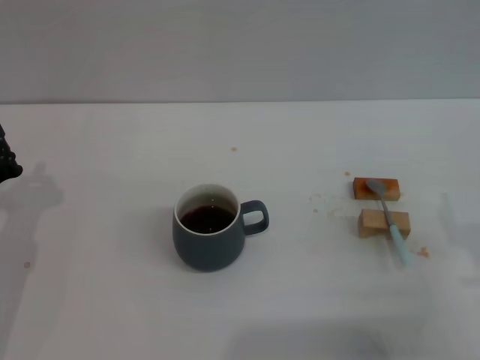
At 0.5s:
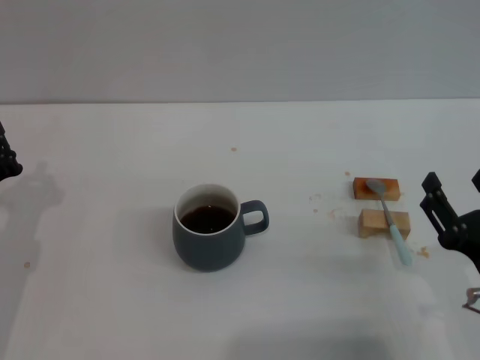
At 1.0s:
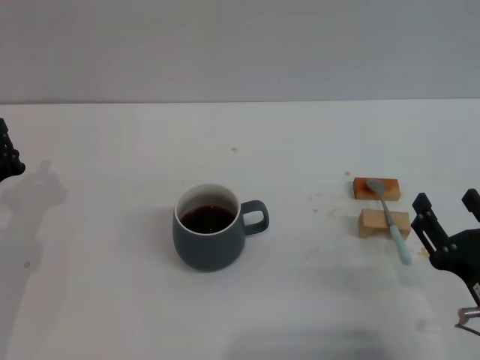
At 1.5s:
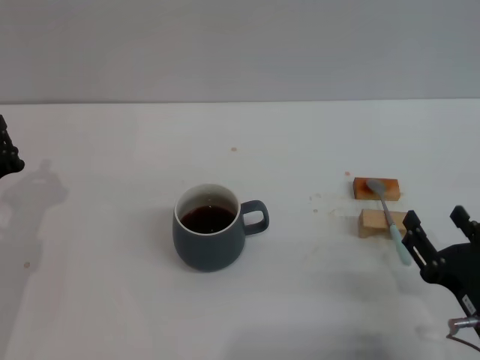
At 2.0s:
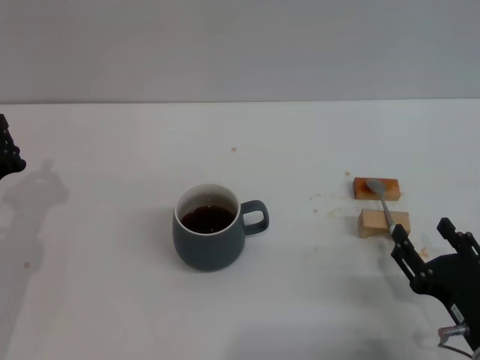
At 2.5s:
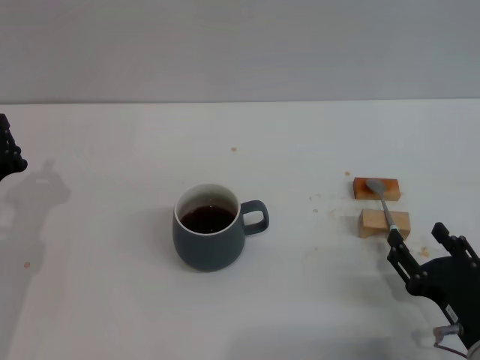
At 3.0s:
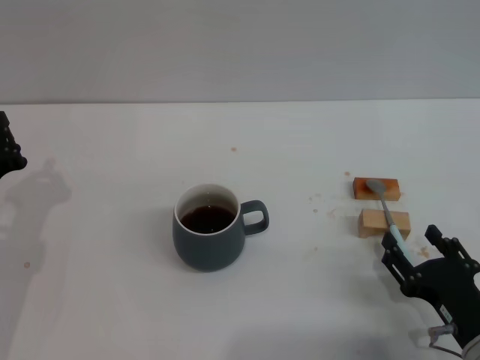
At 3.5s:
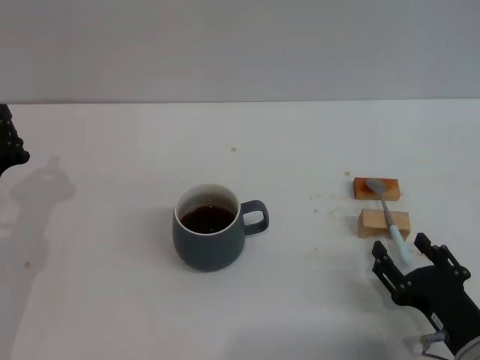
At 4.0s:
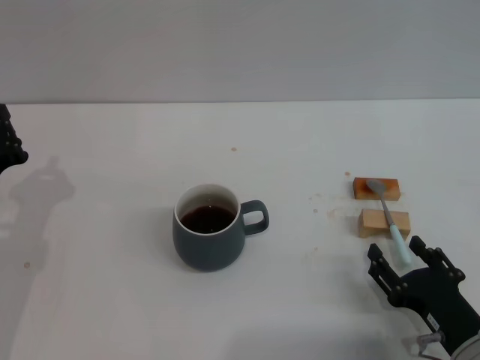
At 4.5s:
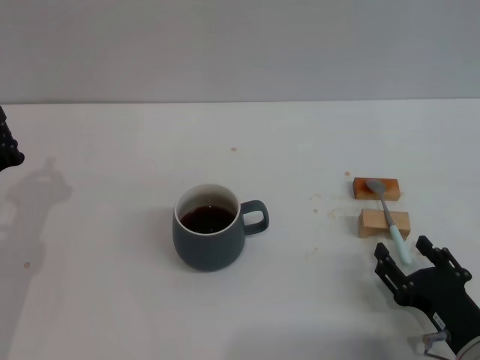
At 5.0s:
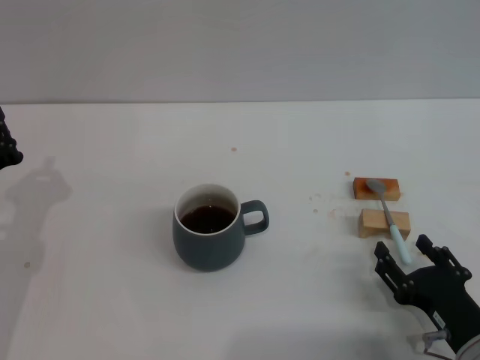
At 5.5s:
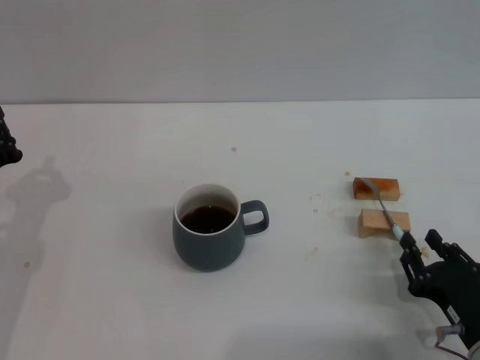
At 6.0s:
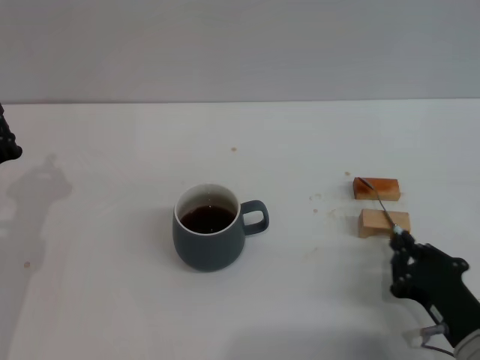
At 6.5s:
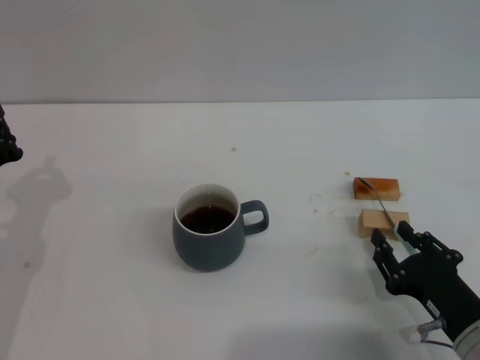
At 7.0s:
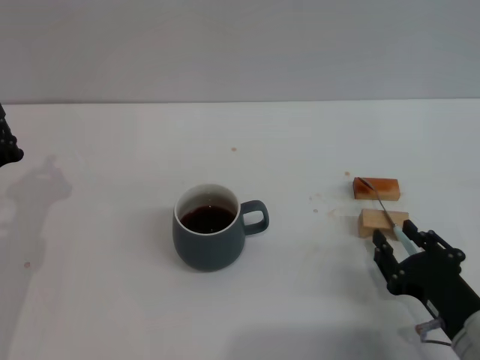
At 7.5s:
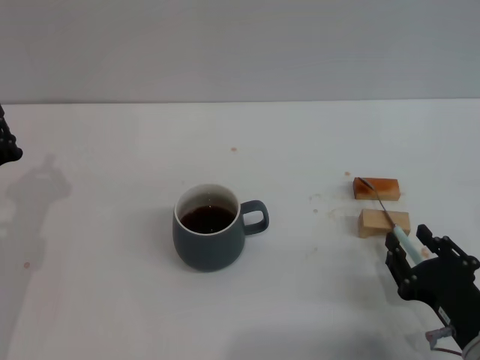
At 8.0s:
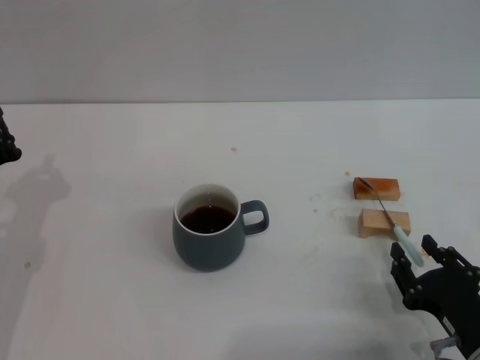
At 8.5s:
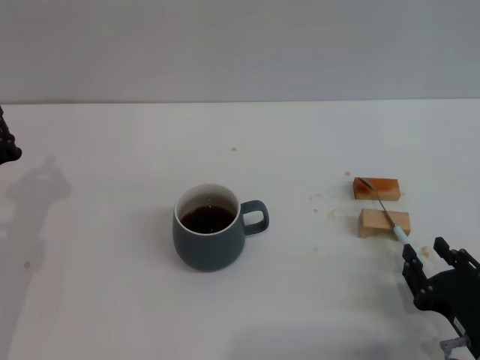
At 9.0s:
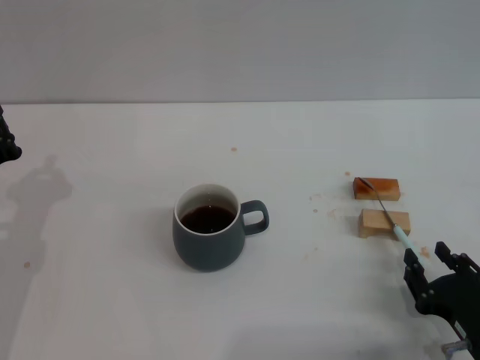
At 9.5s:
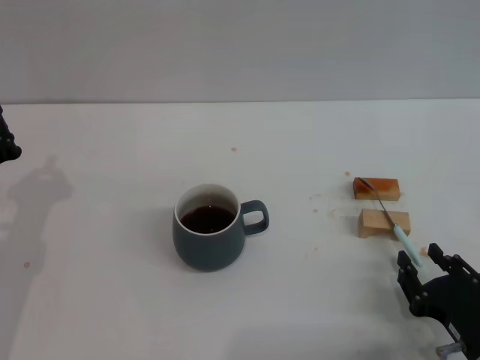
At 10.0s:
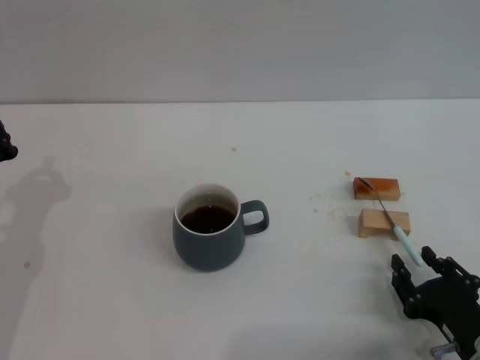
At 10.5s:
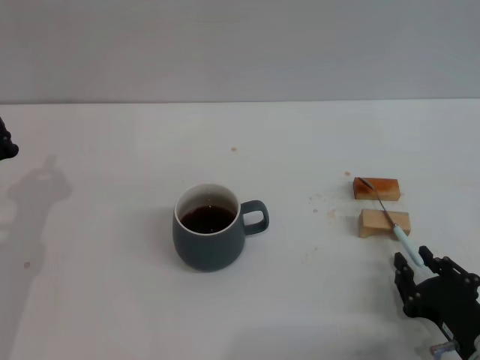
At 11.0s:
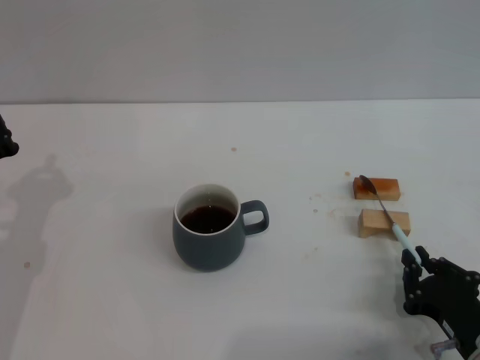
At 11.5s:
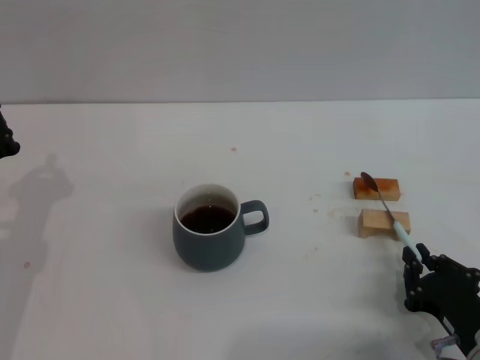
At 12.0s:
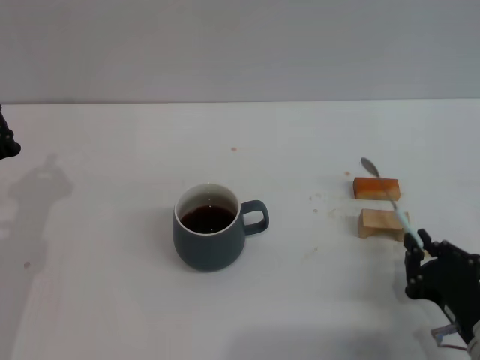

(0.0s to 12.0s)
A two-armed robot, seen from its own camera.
Task of the whole recording: Move the grey cup to the center, lift the blue spoon, stir it three times in the cup, and put the spoon into the cup.
0.0s - 2.0s: The right gripper shifts some 5 cm downward.
2.0s - 4.0s: The grippers move only a little.
4.0s - 6.0s: The right gripper closes.
6.0s - 8.0s: The right gripper opens its fingers.
8.0s - 10.0s: Both grippers stay about where they are.
10.0s - 12.0s: The right gripper closes.

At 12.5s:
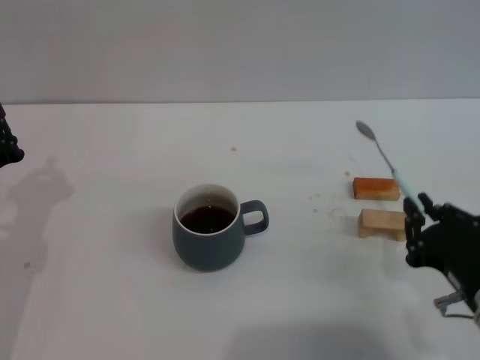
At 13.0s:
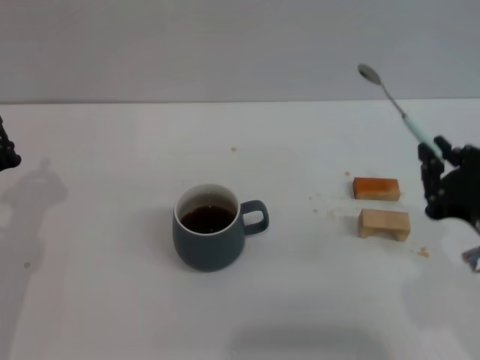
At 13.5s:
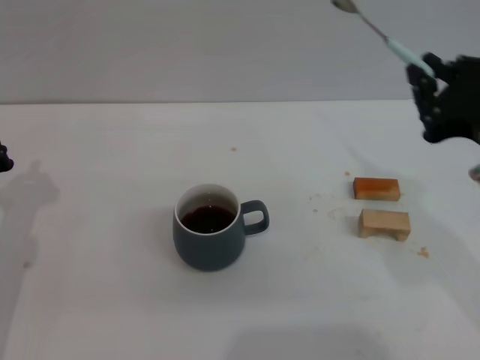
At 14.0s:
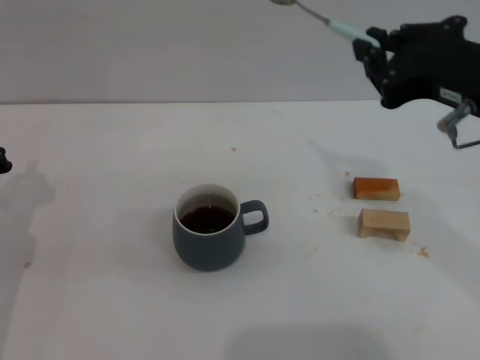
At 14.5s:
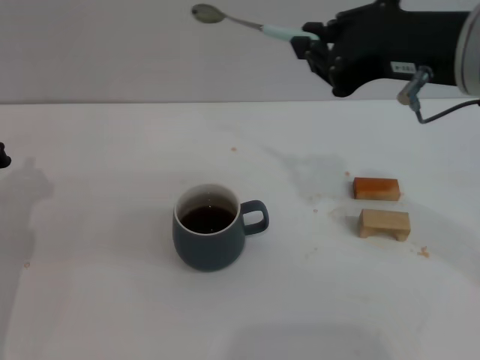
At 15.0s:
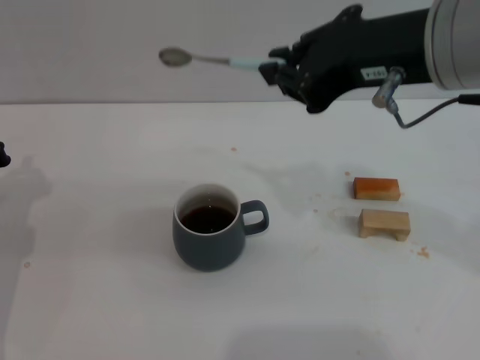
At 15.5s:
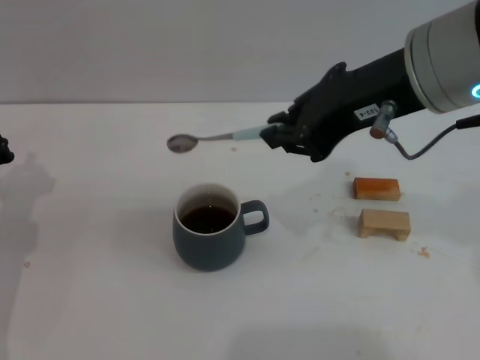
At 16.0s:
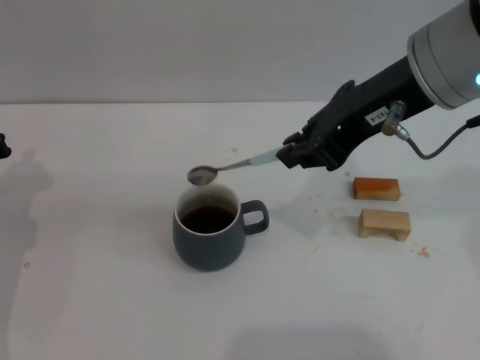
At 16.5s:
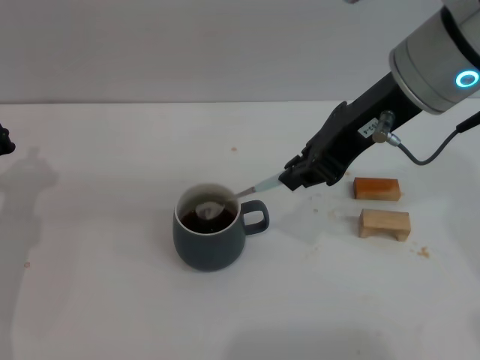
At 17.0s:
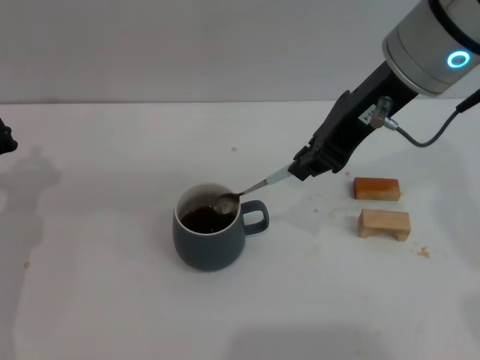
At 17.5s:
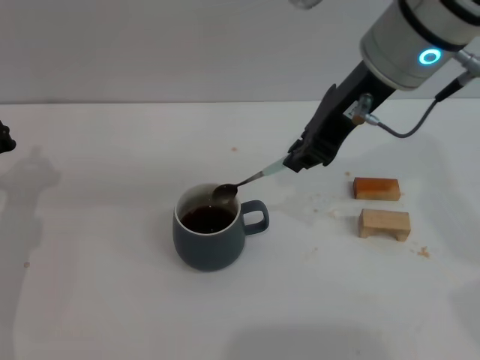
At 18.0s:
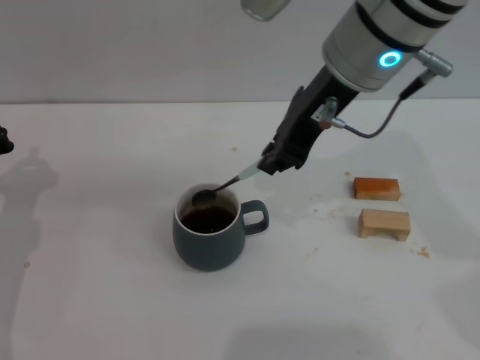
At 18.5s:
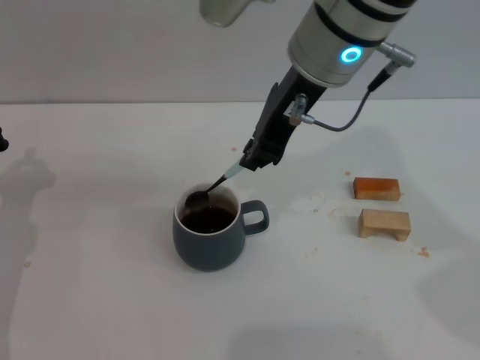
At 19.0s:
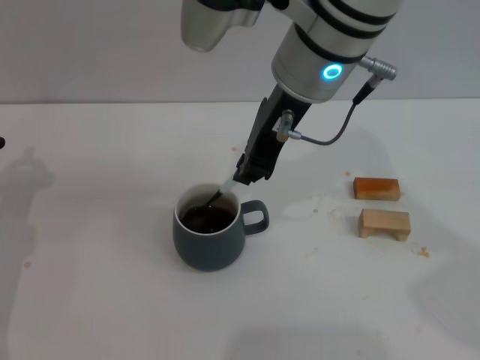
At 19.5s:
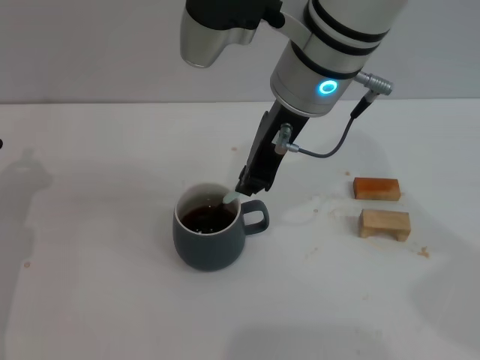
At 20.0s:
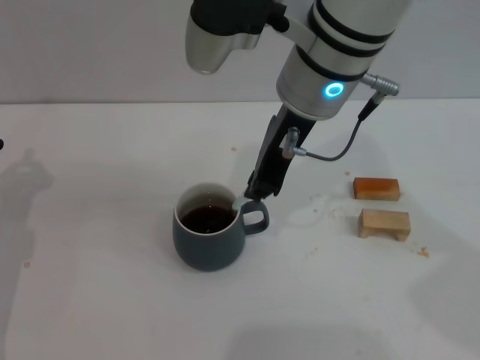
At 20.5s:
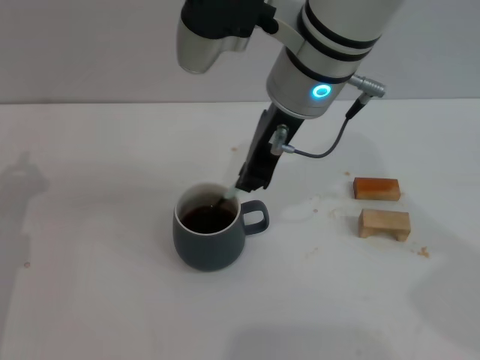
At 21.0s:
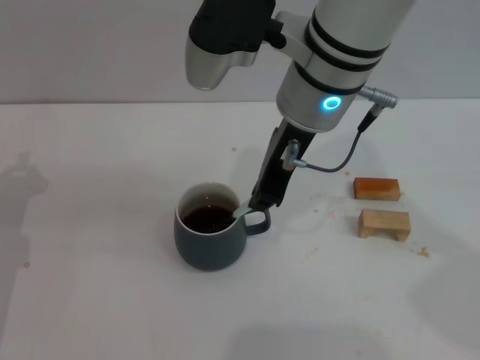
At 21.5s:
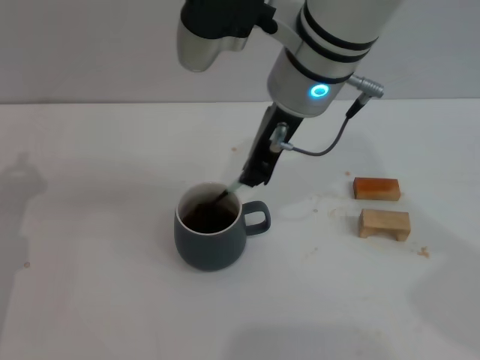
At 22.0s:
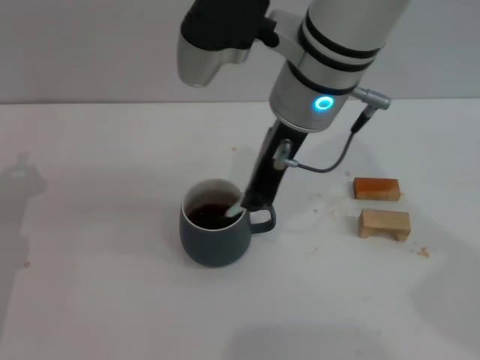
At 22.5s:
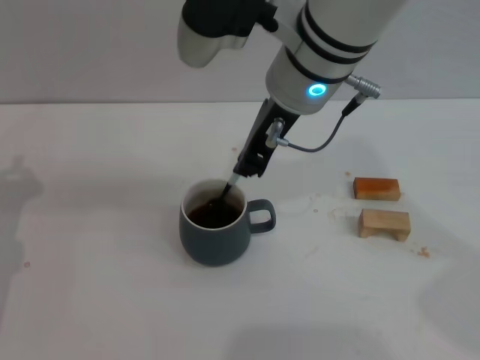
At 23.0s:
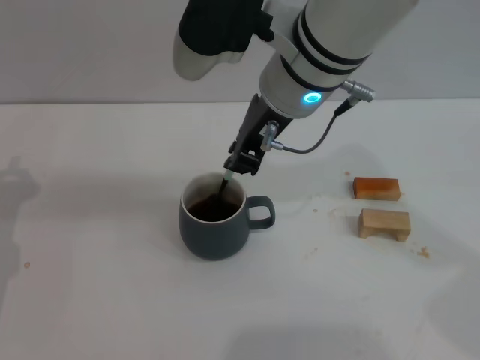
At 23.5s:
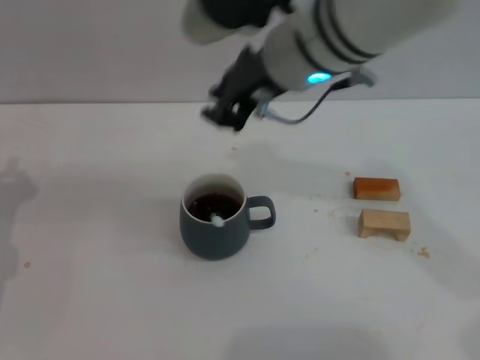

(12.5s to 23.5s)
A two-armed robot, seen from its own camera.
Task of the whole recording: Move the grey cup to the center, lift the blue spoon, stir it three times in the cup, and put the spoon into the cup.
Step, 13.0s - 23.0s: Stir the coffee in the cup with the right gripper.
12.5s - 14.5s: The right gripper goes approximately 25 cm upward and forward.
16.0s - 18.0s: The right gripper moves to the left, about 5 cm.
18.0s - 21.5s: The grippers move only a little.
